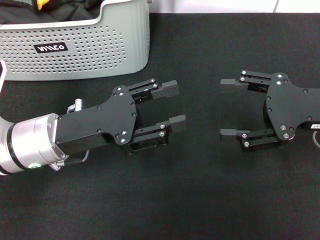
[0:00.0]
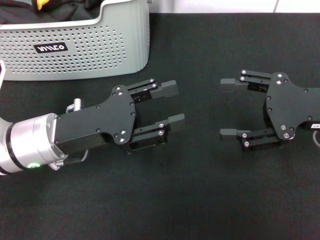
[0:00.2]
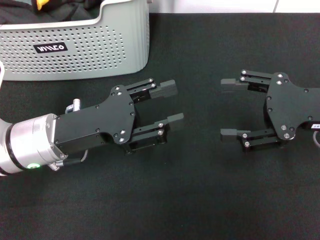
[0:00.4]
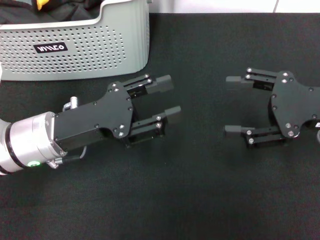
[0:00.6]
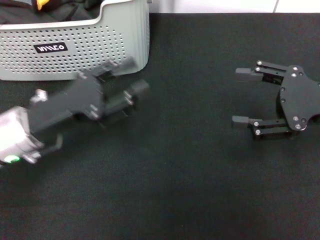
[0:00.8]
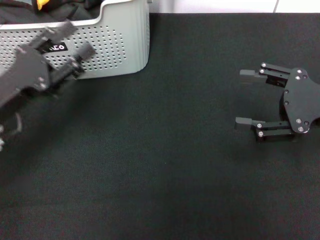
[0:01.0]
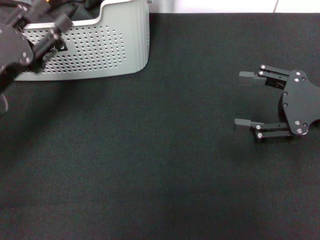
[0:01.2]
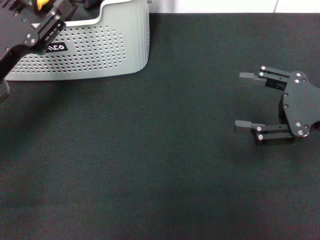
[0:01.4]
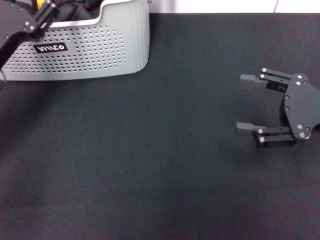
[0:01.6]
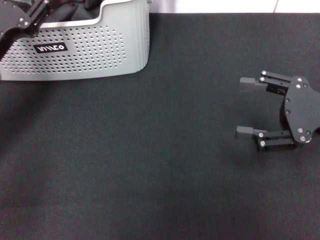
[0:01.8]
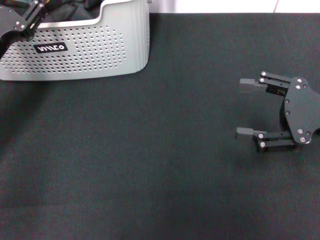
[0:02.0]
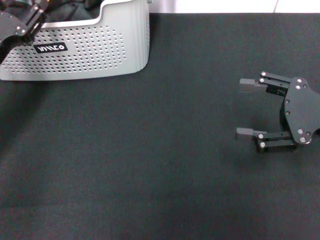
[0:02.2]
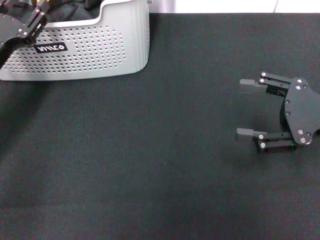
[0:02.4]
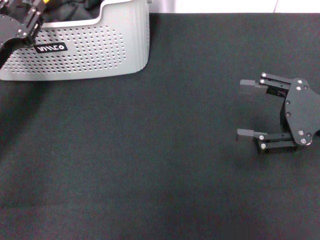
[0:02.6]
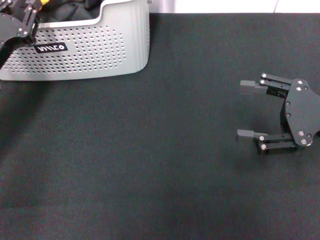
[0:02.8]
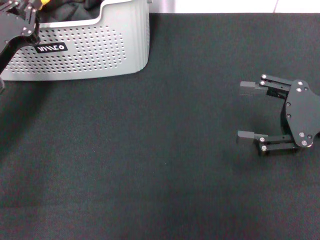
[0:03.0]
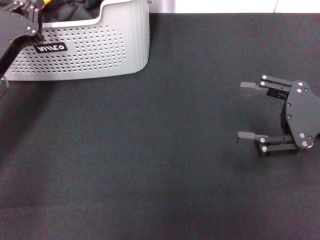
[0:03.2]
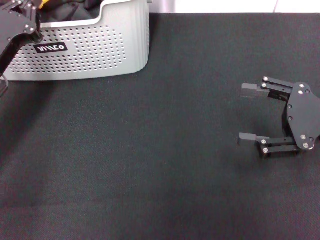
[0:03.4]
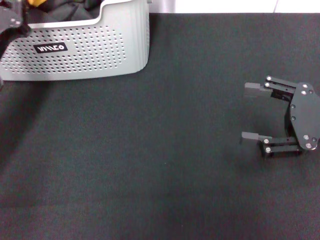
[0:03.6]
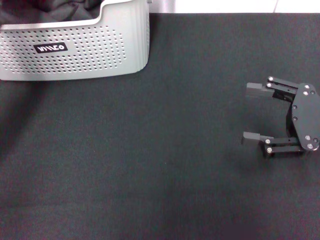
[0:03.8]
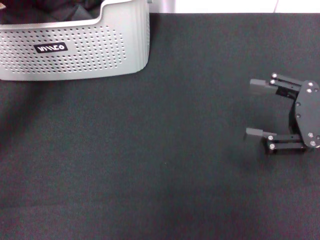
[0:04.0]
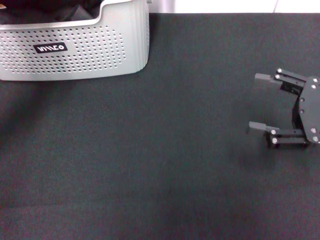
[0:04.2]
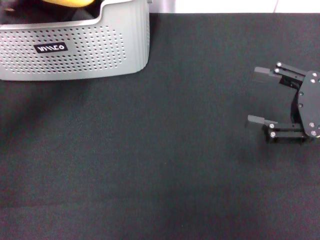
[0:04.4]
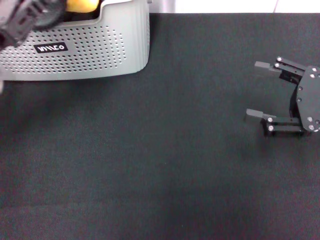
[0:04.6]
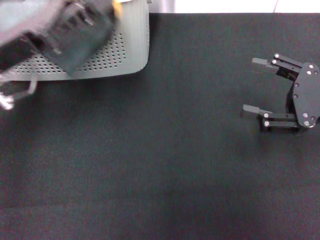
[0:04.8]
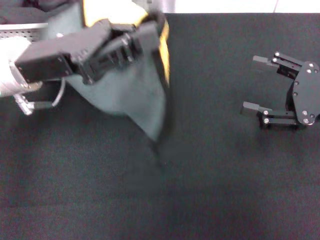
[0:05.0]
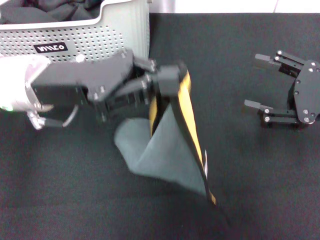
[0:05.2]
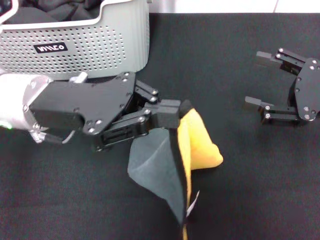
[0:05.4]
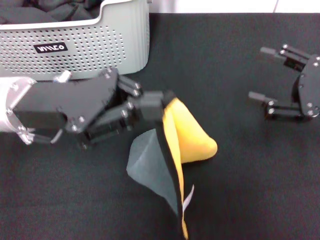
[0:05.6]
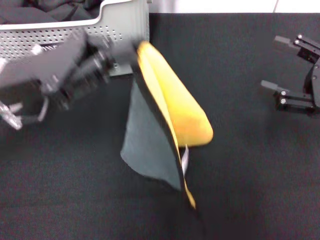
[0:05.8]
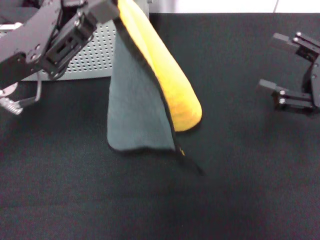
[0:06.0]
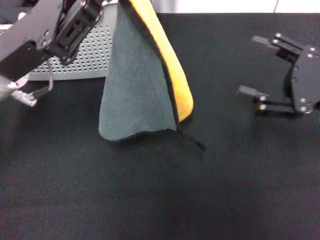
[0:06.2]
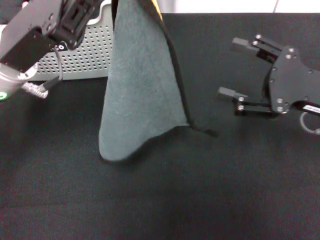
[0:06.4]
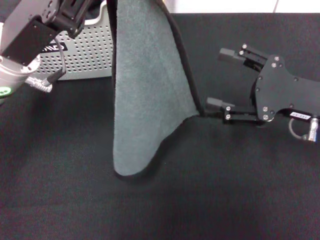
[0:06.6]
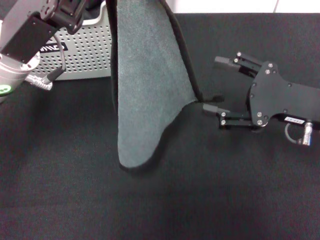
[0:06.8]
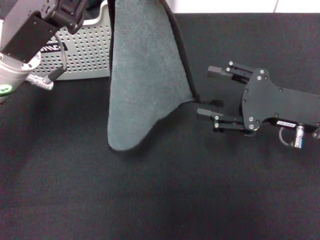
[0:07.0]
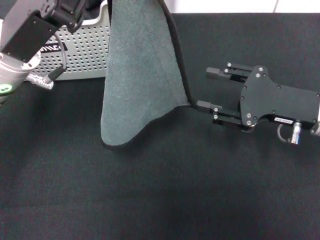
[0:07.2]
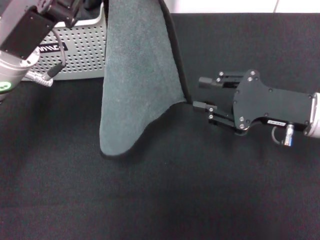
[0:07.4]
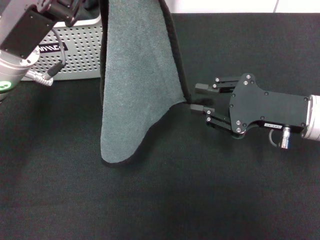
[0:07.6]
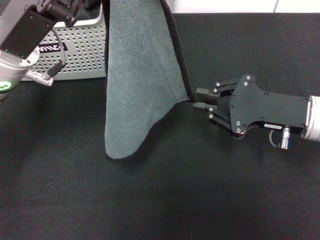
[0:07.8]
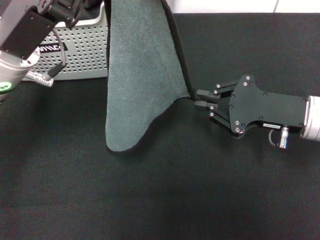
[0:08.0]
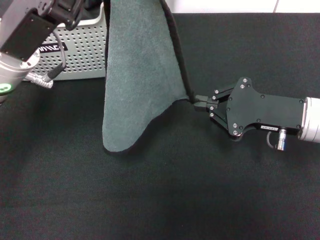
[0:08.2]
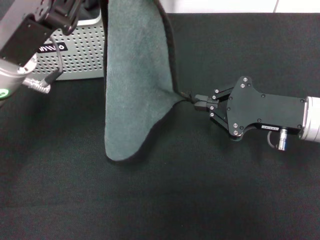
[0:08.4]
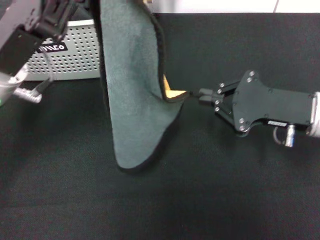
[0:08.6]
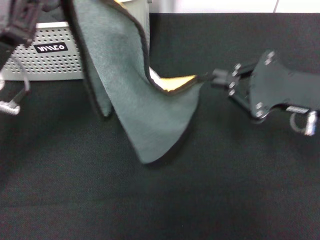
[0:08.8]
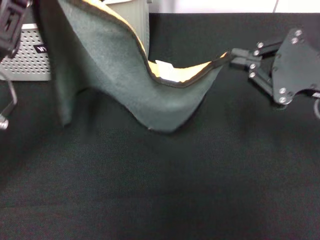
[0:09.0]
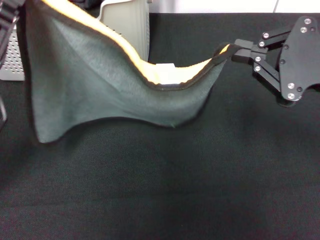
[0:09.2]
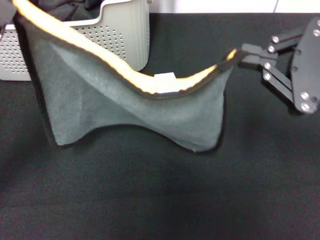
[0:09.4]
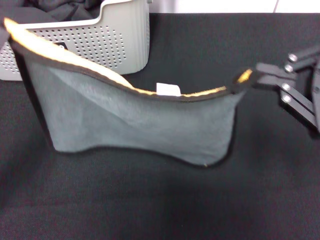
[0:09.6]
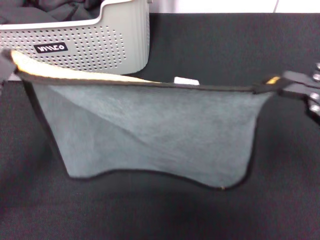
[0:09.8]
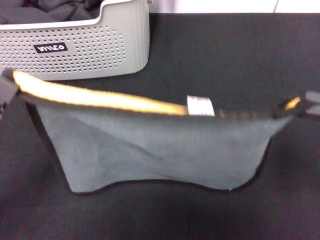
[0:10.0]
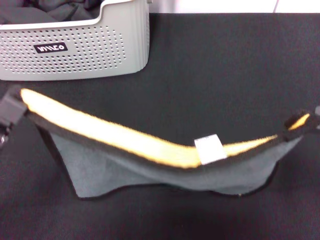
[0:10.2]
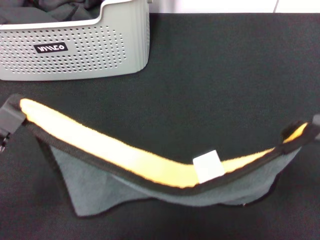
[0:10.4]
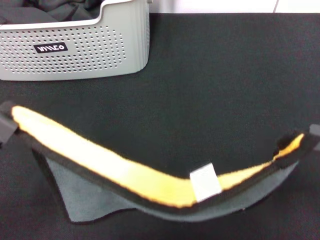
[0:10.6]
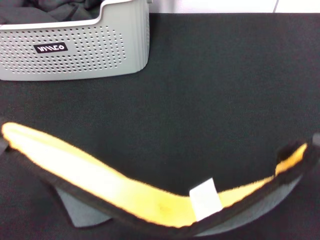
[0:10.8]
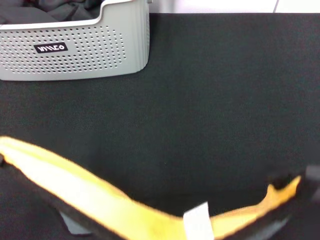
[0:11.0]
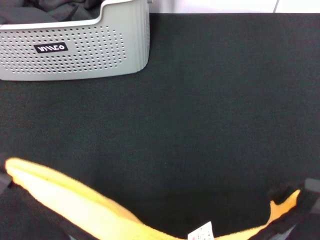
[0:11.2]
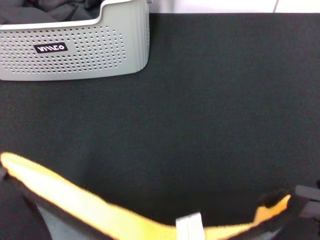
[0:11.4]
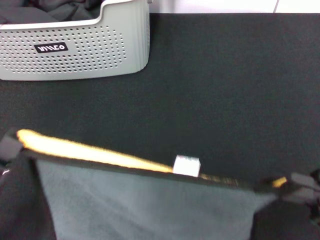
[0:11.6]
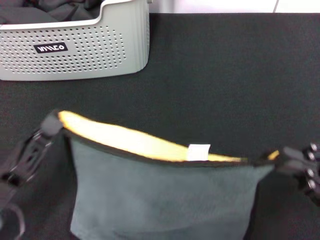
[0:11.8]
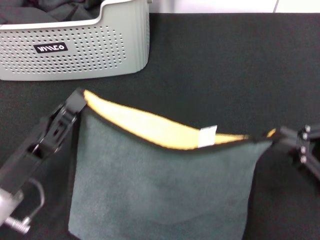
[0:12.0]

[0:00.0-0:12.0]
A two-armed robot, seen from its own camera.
Task of the whole recording: pick up the towel from the storage box and lay it flat on the black tablecloth.
Step, 0:00.0 to 0:03.4: Pick up a towel with the left gripper.
Step, 0:03.6 to 0:08.2: Spread the towel flat with the left gripper.
0:00.0 to 0:01.6: The left gripper travels to the left by about 10 cm.
0:01.6 to 0:03.0: The left gripper closes its fingers.
0:03.0 to 0:04.4: The left gripper heads upward, covering approximately 5 cm.
0:04.4 to 0:06.0: The left gripper goes some 5 cm to the right.
0:06.0 to 0:07.6: The right gripper goes approximately 5 cm to the left, and closes up.
0:07.6 to 0:09.0: The left gripper goes about 5 cm to the left, while the right gripper shifts some 10 cm upward, and closes up.
0:09.0 to 0:10.4: The right gripper travels backward and upward by approximately 15 cm. The left gripper heads backward, covering approximately 10 cm.
0:10.4 to 0:12.0: The right gripper shifts approximately 15 cm downward. The left gripper moves some 5 cm.

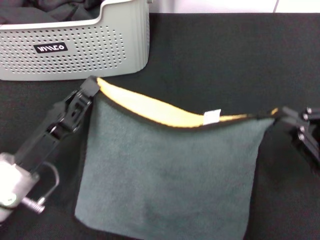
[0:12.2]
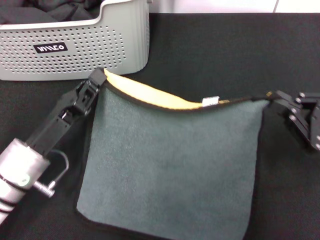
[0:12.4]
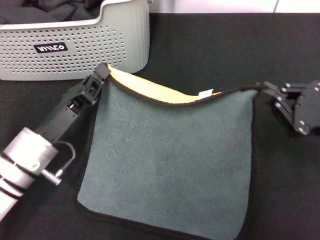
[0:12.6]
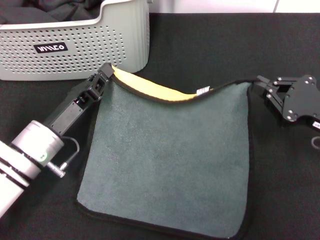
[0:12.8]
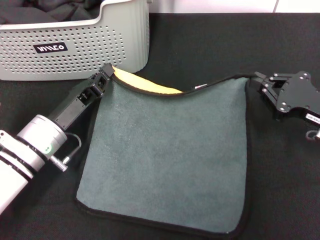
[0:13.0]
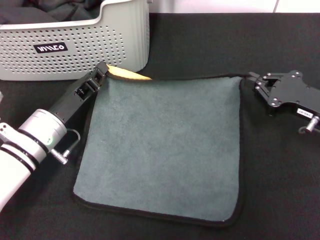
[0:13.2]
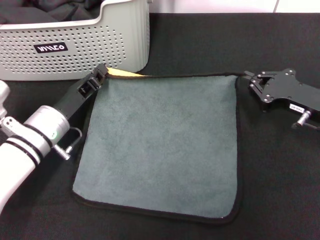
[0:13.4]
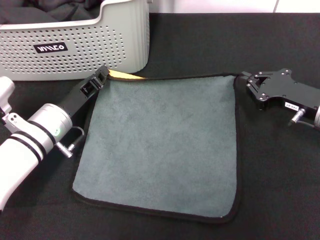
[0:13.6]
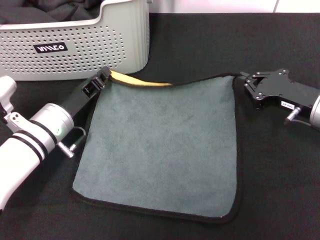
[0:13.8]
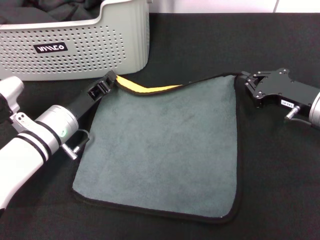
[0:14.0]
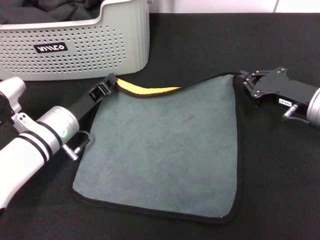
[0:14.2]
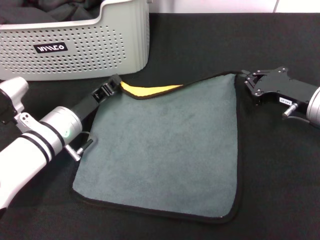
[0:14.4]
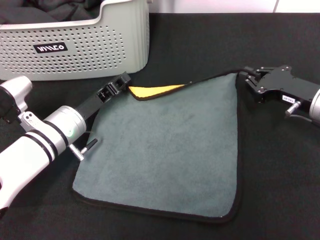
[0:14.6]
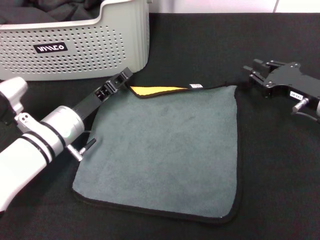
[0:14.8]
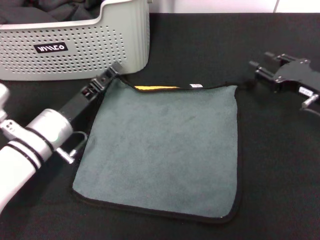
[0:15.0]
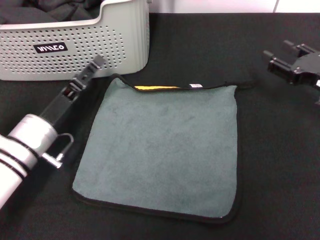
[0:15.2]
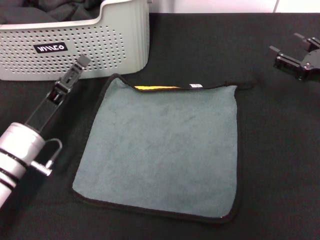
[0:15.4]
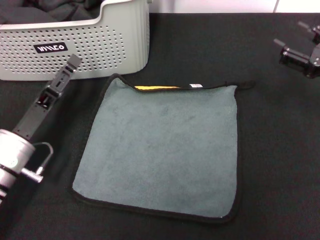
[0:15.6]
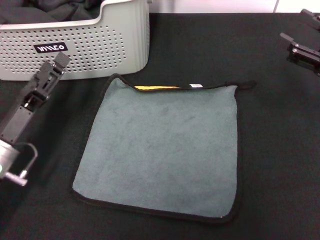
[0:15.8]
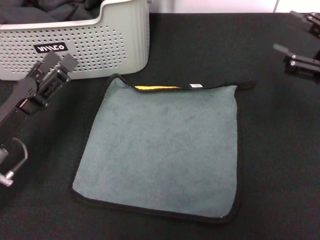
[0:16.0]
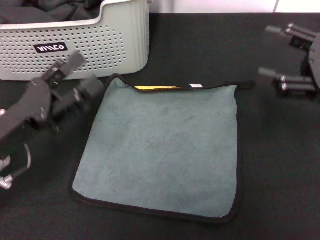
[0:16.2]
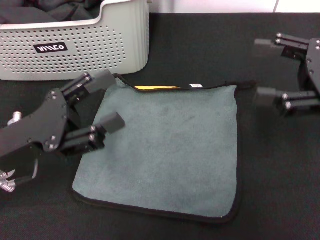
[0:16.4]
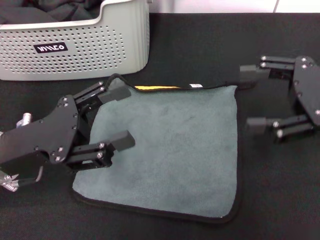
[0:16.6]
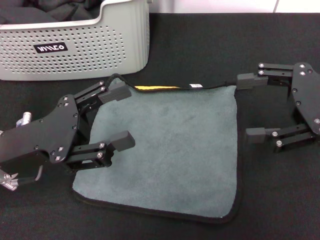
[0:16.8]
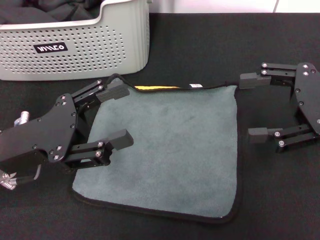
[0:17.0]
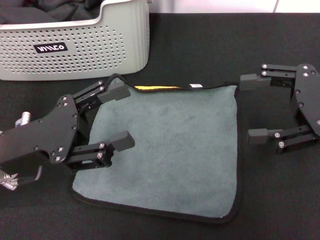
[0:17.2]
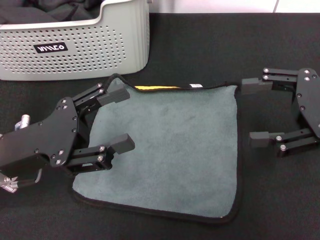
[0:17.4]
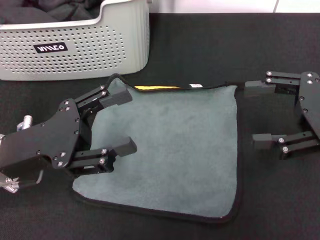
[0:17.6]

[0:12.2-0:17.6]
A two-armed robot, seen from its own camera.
Task of the whole recording: pick up the towel from the storage box and lay it flat on the black tablecloth.
Step, 0:12.2 to 0:14.8: Spread the towel flat with the right gripper.
0:12.2 to 0:13.6: Both grippers move forward, approximately 10 cm.
0:13.6 to 0:15.0: The left gripper opens its fingers.
0:15.0 to 0:16.2: The right gripper goes some 10 cm upward, and opens; the left gripper moves backward, upward and to the left, about 10 cm, and opens its fingers.
